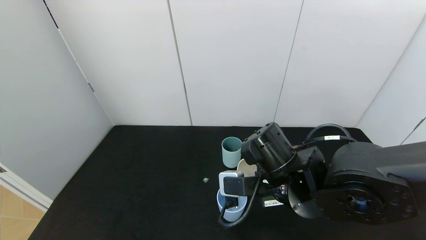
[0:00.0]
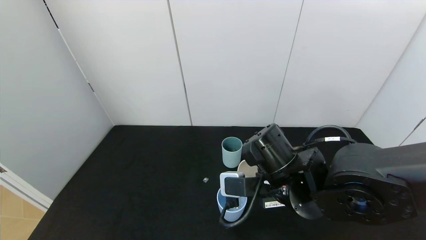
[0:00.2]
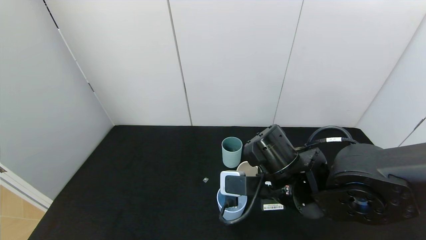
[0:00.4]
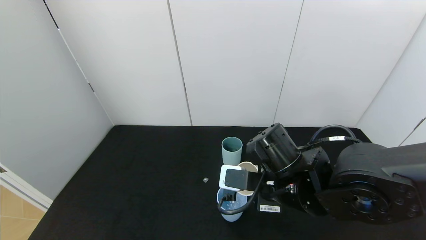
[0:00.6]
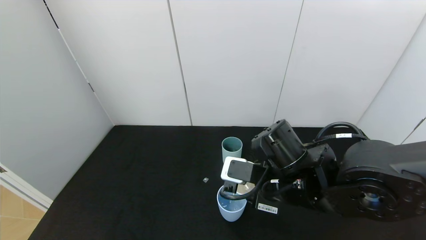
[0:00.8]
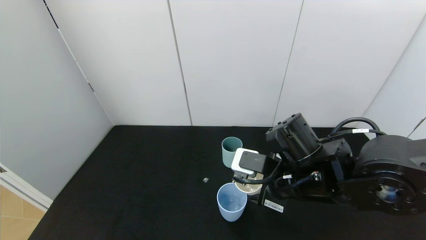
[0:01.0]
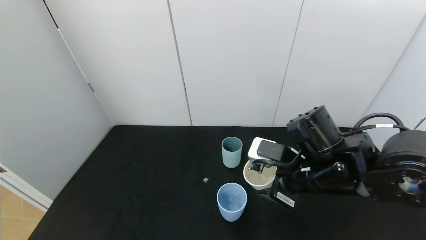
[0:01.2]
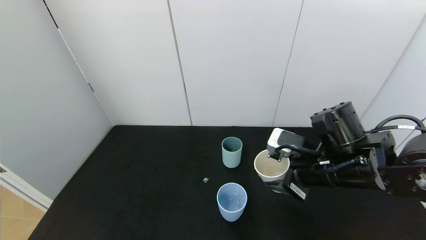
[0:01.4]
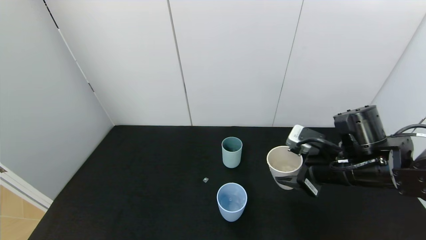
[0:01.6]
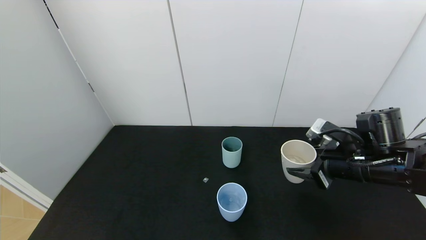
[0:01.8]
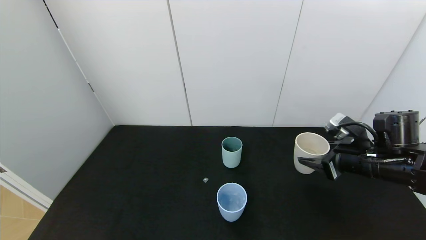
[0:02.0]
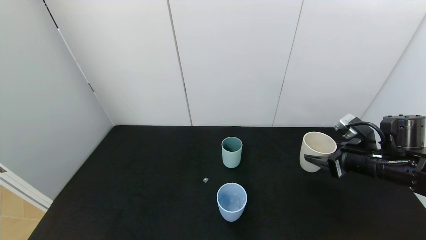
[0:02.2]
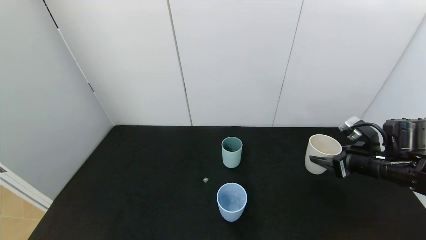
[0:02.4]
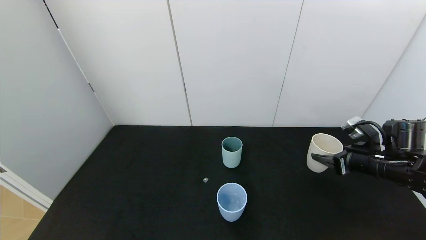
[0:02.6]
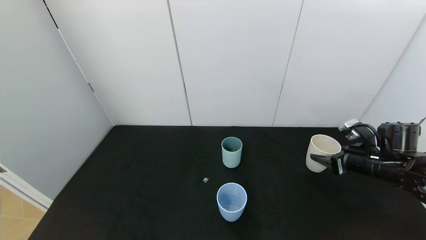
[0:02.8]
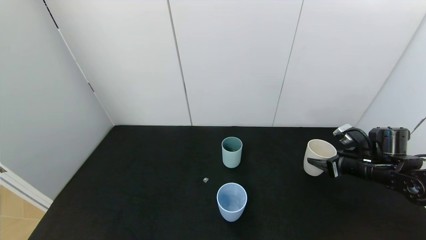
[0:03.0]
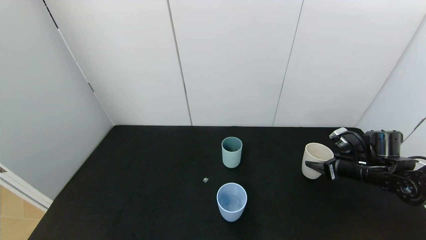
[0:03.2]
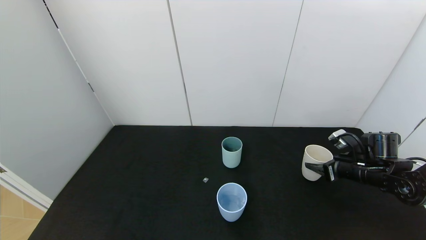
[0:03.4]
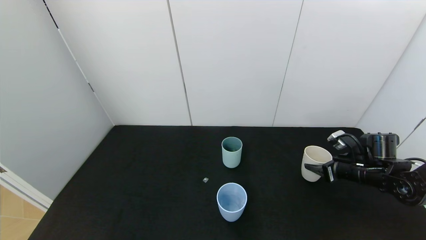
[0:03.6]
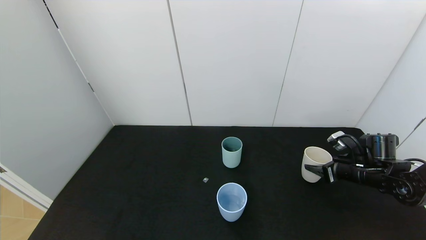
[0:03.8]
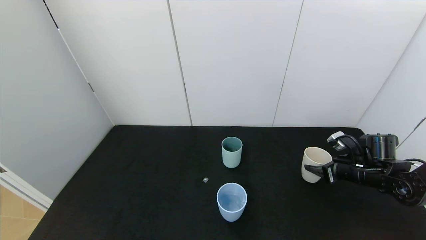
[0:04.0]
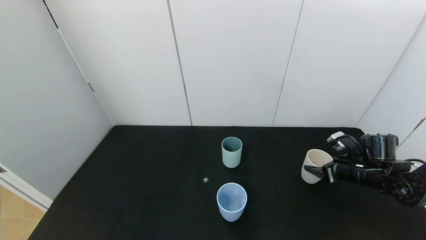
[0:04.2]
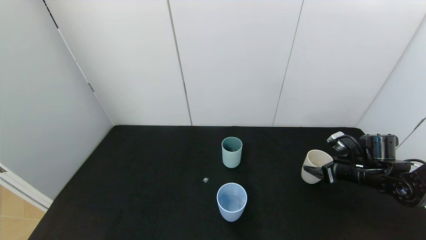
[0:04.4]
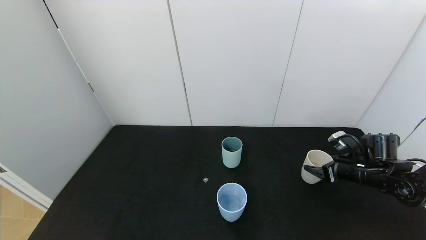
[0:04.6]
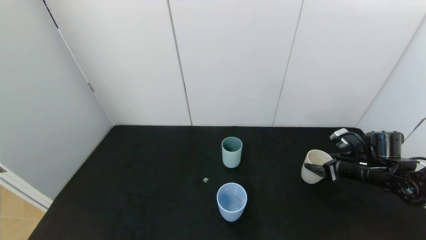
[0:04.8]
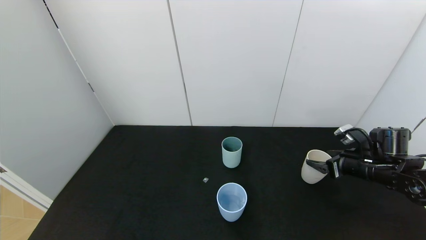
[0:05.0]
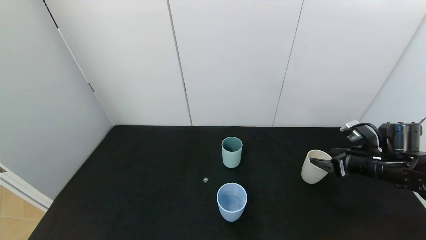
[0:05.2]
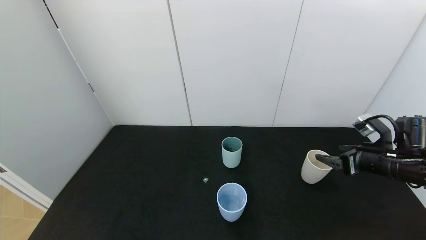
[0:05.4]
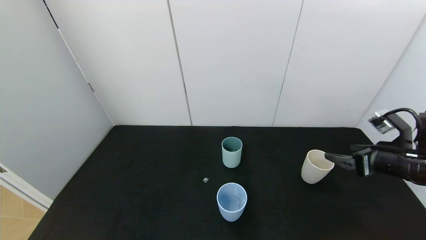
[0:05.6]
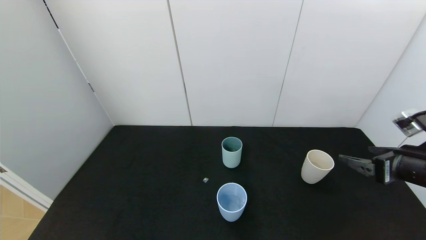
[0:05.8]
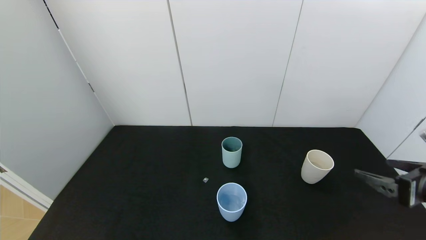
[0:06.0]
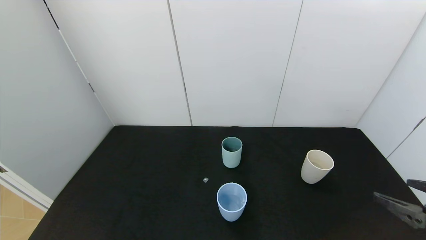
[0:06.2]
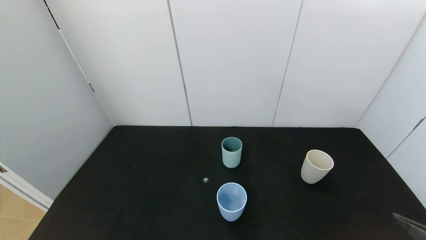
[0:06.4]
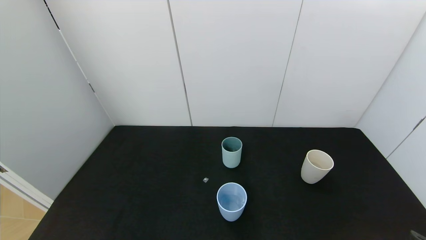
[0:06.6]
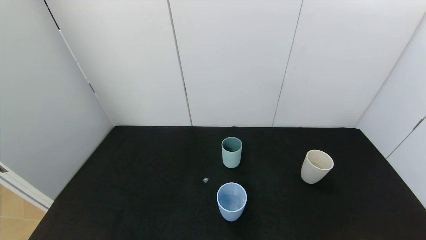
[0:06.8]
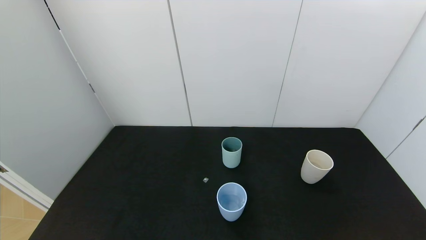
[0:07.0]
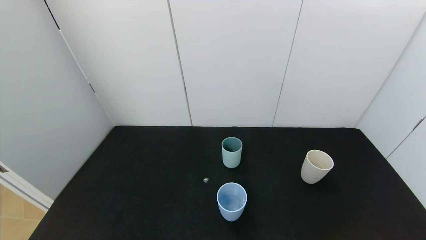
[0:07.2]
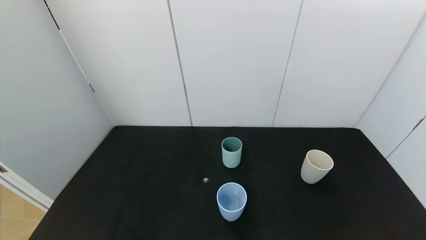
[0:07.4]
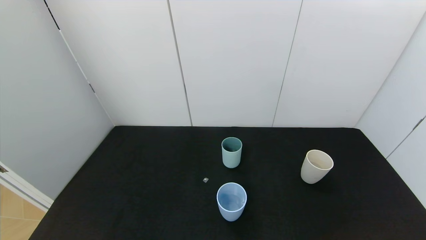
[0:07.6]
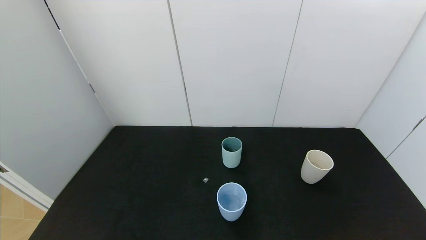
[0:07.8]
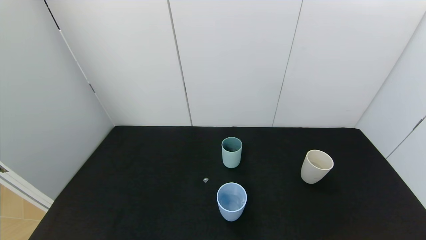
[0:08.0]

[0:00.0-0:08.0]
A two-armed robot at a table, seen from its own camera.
Task of the whole recording: use the gripper to pour the water into the other two cups on black table.
Step, 0:01.4 to 0:05.8: Place the white cup with the right gripper.
0:00.0 to 0:01.6: The right gripper is displaced to the right by roughly 15 cm.
0:01.6 to 0:03.2: The right gripper shifts some 15 cm to the right, downward and forward.
0:03.2 to 0:04.8: The right gripper opens.
0:04.8 to 0:06.4: The right gripper moves backward, roughly 25 cm.
